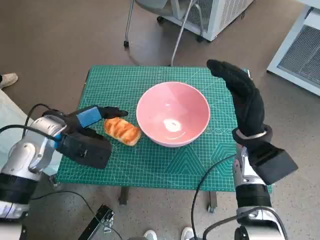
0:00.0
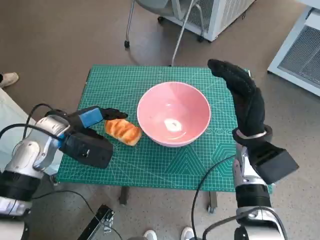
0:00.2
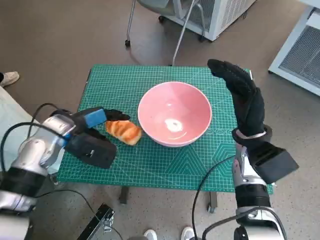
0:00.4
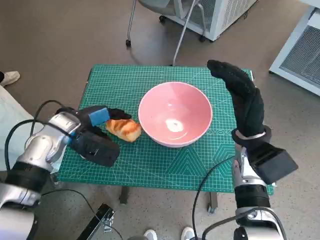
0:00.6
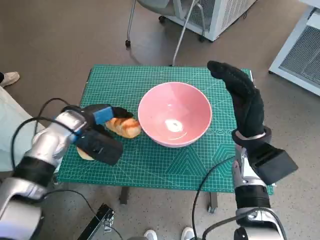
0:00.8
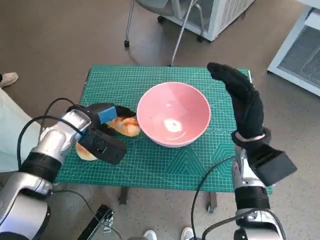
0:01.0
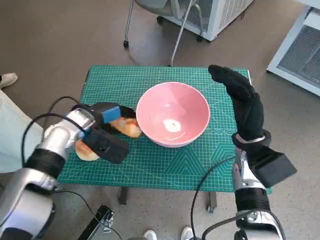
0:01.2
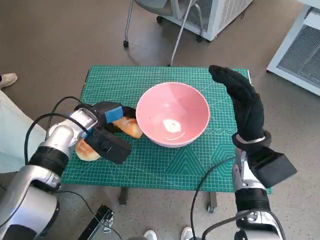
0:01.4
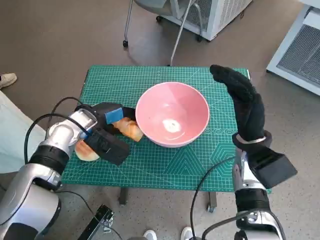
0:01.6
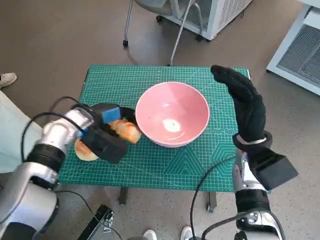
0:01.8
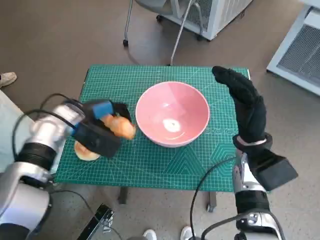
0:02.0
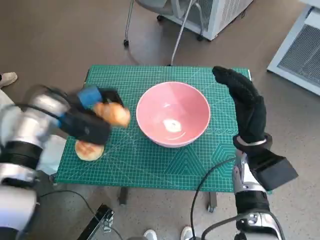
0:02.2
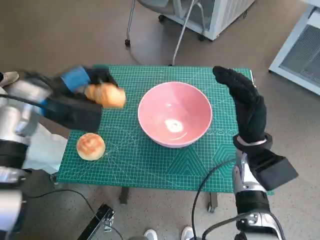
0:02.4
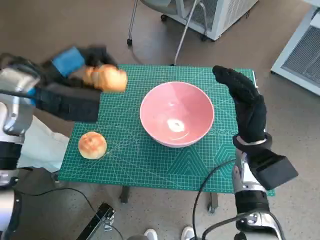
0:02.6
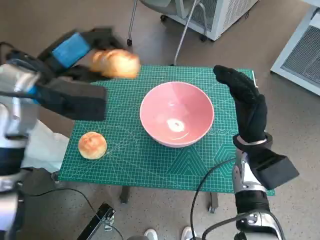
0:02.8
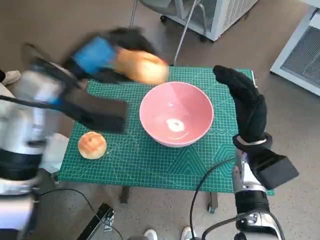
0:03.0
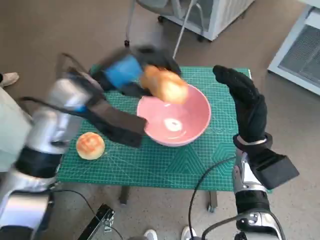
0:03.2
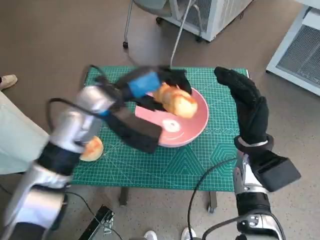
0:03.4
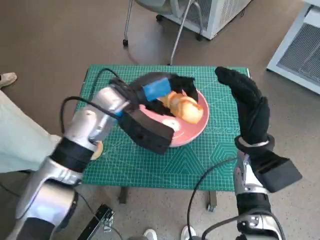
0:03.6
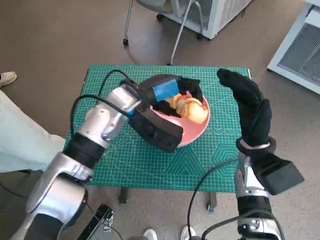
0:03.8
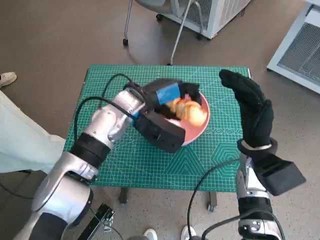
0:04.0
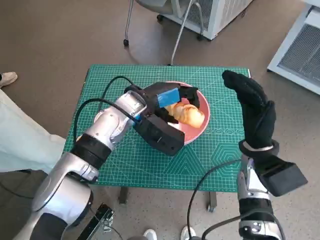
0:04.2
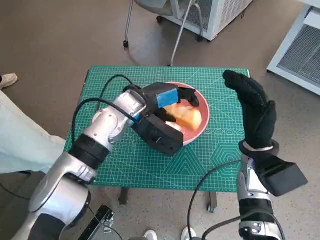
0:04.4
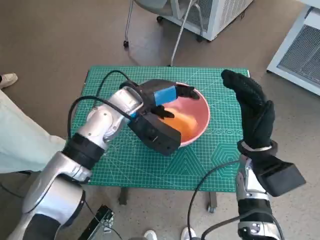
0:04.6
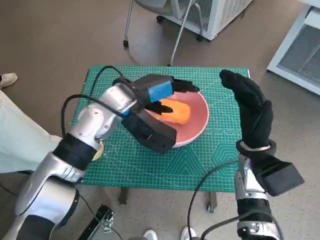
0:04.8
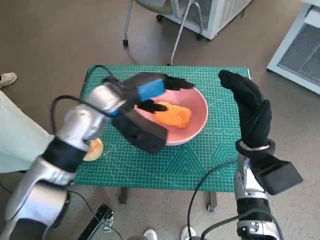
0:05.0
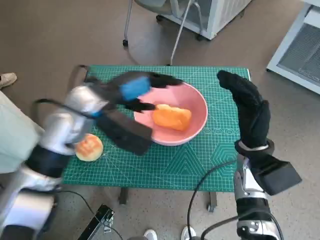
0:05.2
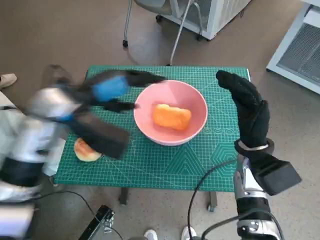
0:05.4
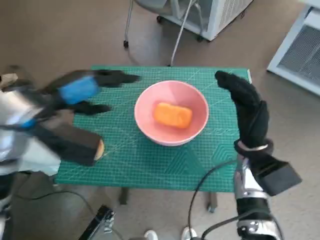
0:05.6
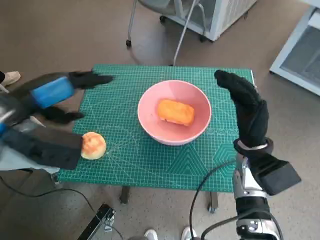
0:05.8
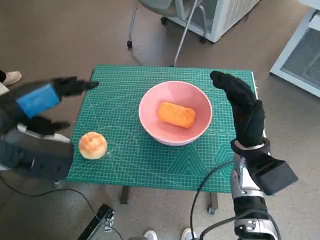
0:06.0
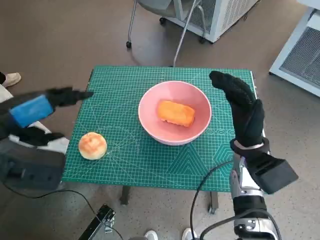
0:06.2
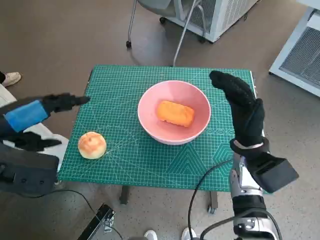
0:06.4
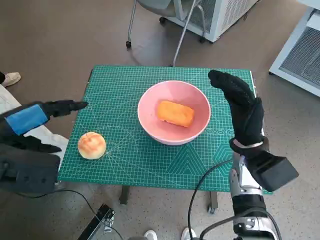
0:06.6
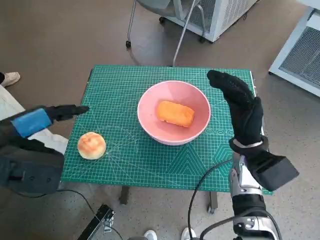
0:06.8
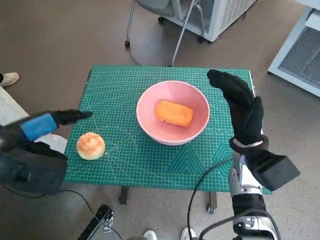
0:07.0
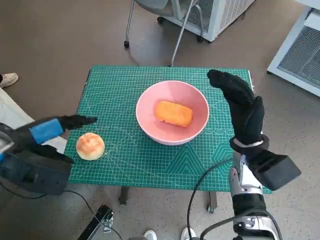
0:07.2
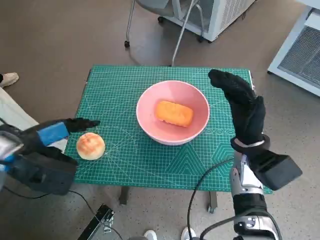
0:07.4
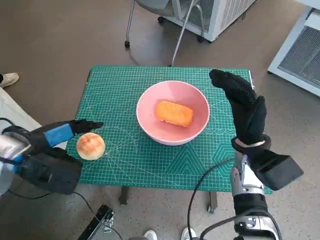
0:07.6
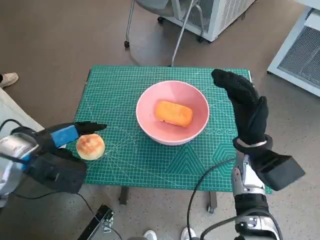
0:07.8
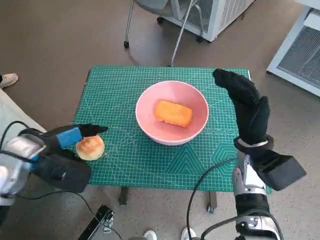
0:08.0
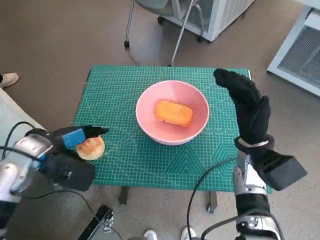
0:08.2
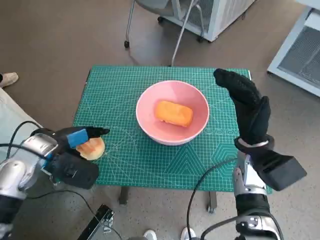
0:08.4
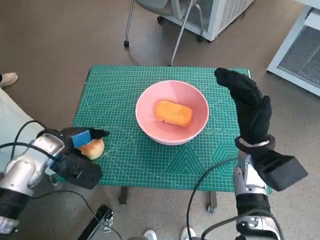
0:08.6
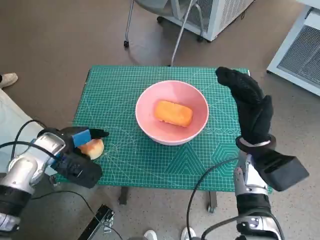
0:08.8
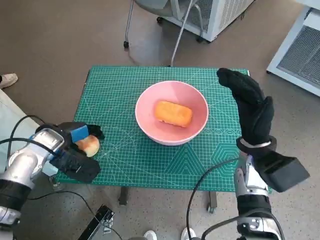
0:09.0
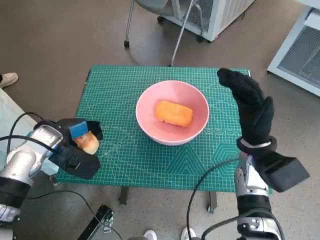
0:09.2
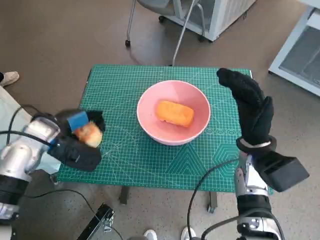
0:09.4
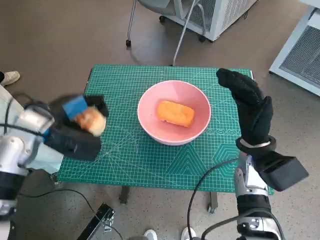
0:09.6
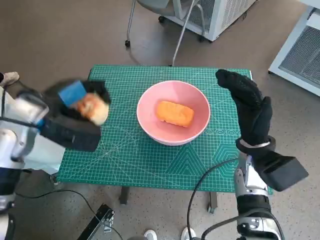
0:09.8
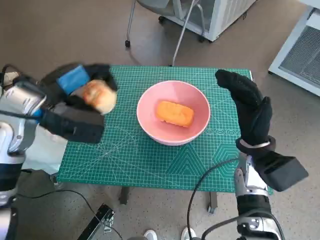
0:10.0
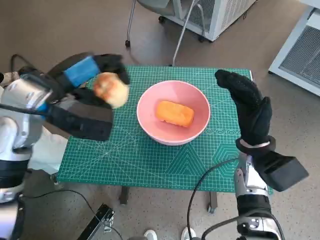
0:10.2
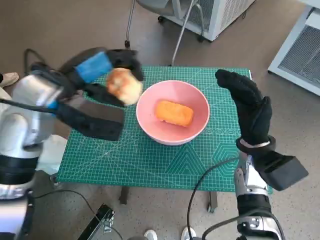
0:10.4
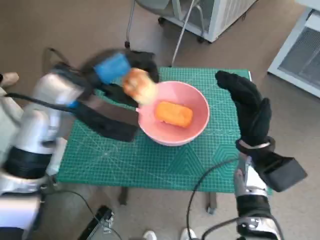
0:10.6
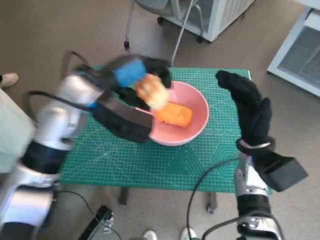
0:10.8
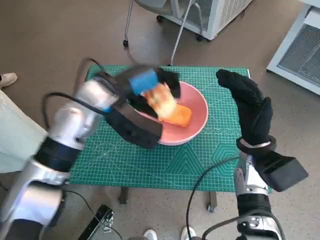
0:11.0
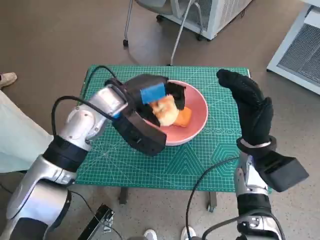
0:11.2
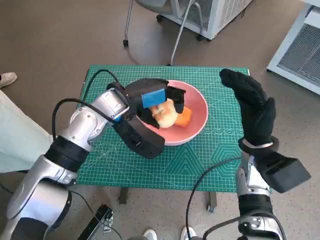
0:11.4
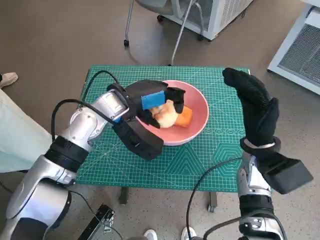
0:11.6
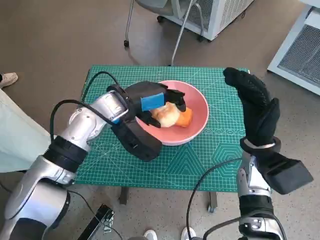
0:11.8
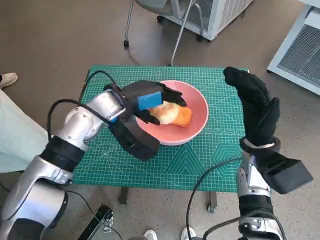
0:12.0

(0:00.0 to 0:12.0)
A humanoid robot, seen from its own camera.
Task of the whole recording: Push the bowl to the center of the table and put the bread into the bowl.
Step, 0:01.4 - 0:04.8: Place the long bread in pink bowl with left hand.
Step, 0:05.2 - 0:08.6: Grasp the round bread with left hand.
0:00.0 - 0:01.6: The left hand ends up approximately 5 cm from where it was.
0:01.6 - 0:03.0: The left hand travels upward by some 15 cm.
0:03.0 - 0:04.4: The left hand travels downward and to the right by about 15 cm.
0:04.4 - 0:06.0: The left hand travels to the left, backward and upward by approximately 20 cm.
0:06.0 - 0:07.6: The left hand shifts some 10 cm downward.
0:07.6 - 0:09.0: The left hand travels downward by roughly 5 cm.
0:09.0 - 0:10.4: The left hand shifts approximately 15 cm upward and to the right.
0:10.4 - 0:12.0: The left hand moves downward and to the right, approximately 10 cm.

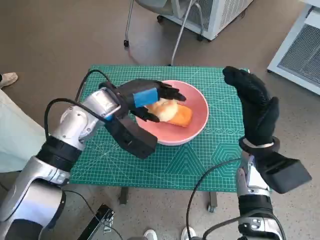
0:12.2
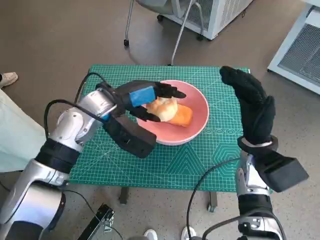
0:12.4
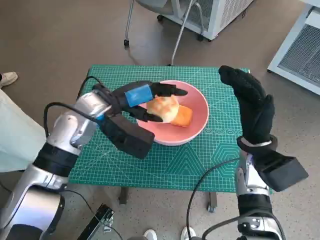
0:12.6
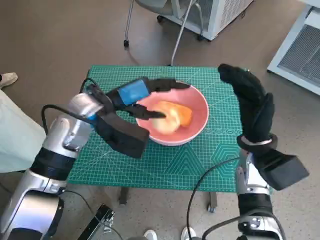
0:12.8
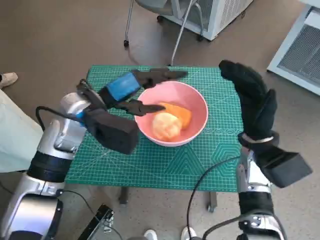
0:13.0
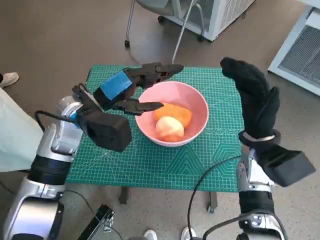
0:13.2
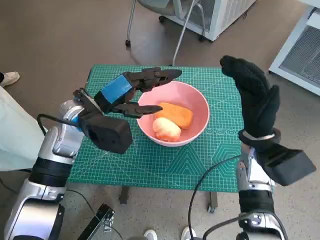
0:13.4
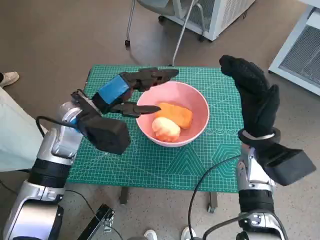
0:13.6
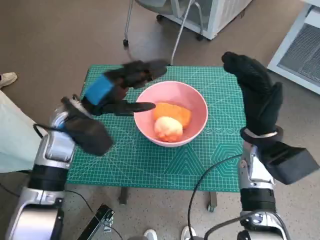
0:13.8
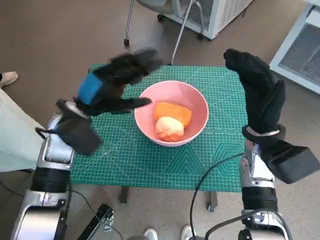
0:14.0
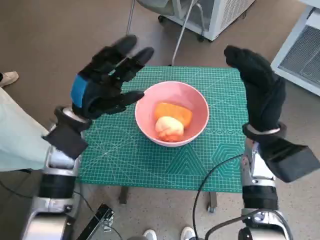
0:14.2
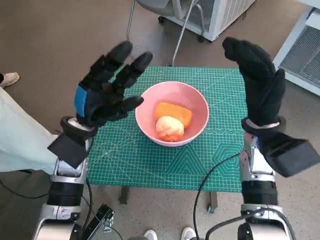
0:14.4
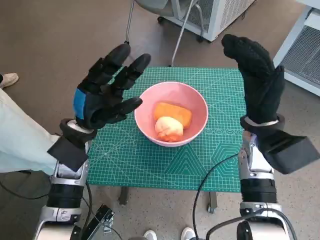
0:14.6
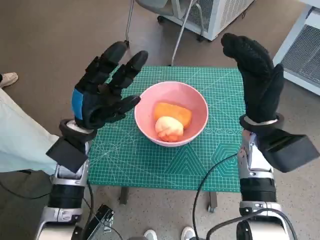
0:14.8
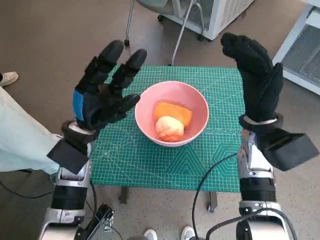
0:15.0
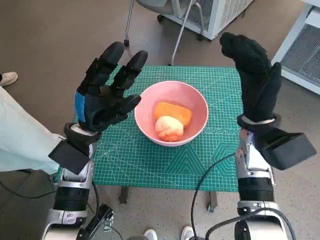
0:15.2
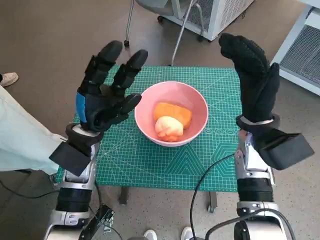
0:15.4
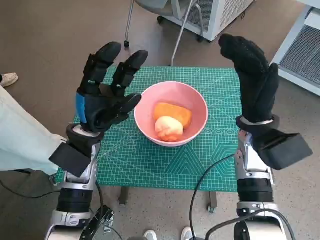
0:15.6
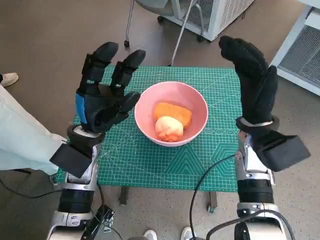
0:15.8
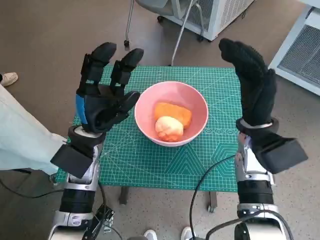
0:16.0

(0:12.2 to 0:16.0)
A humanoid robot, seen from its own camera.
Task of the whole recording: Push the bowl to the center of the table and put the bread into the bowl.
0:13.4 - 0:14.8: The left hand moves about 5 cm.
0:14.8 - 0:16.0: The hands stay close to where they were, moving slightly.

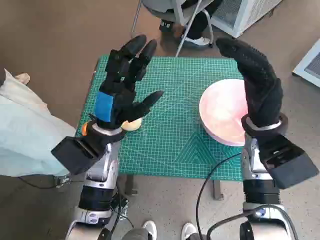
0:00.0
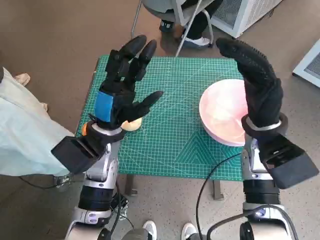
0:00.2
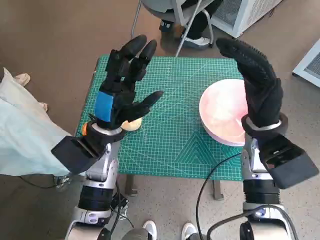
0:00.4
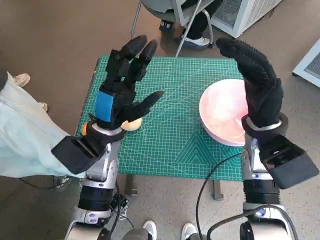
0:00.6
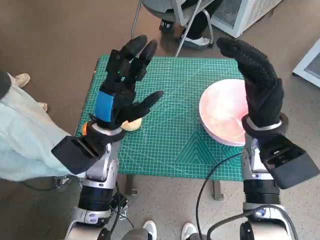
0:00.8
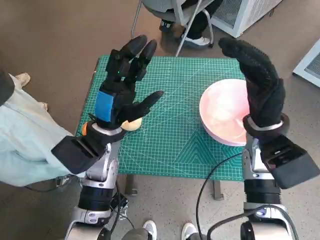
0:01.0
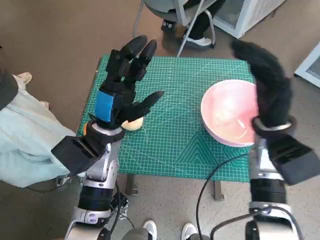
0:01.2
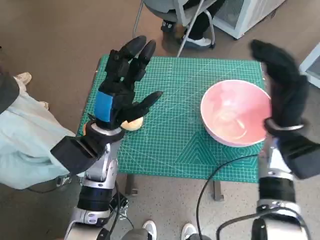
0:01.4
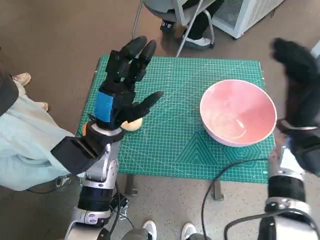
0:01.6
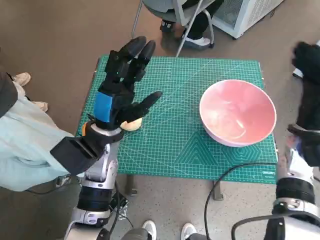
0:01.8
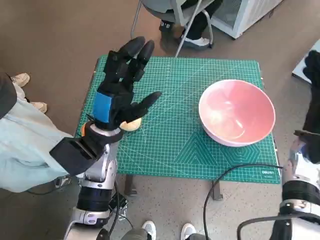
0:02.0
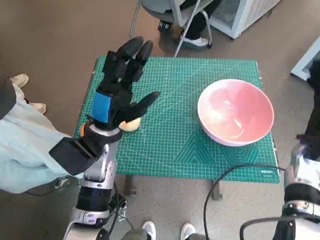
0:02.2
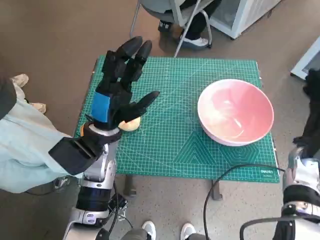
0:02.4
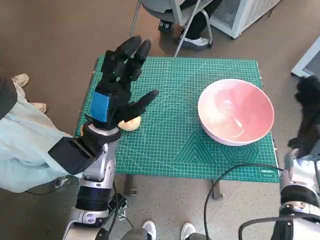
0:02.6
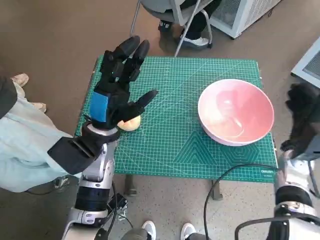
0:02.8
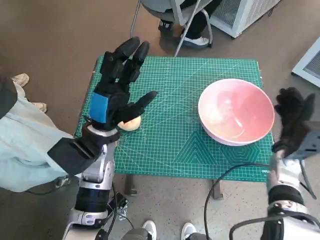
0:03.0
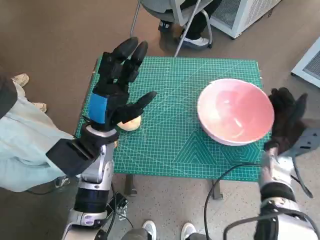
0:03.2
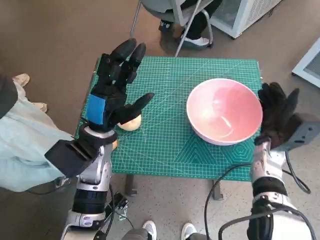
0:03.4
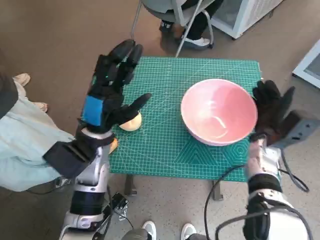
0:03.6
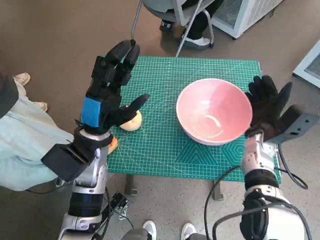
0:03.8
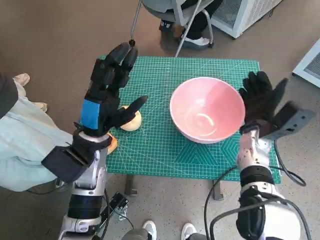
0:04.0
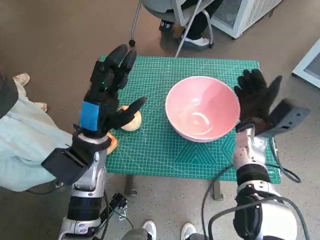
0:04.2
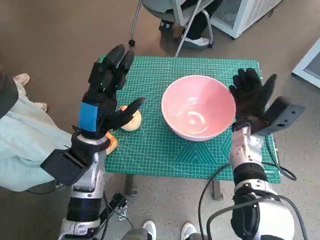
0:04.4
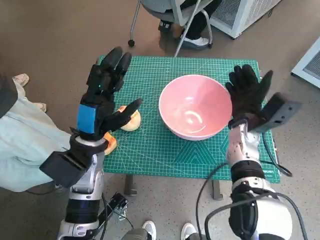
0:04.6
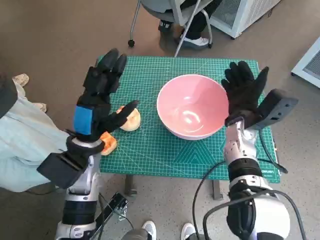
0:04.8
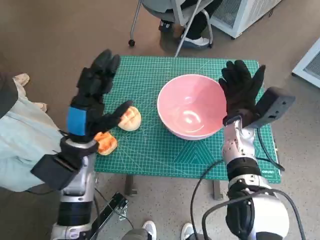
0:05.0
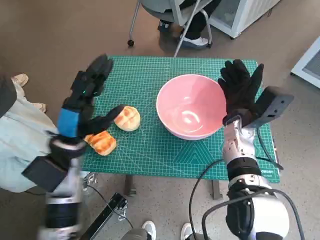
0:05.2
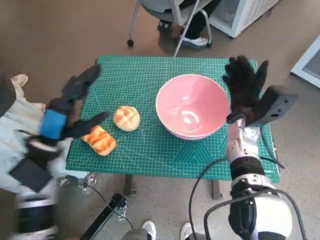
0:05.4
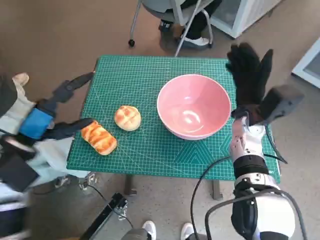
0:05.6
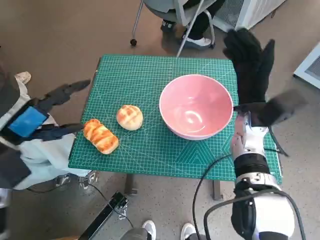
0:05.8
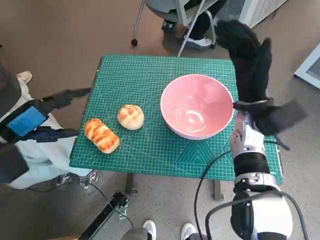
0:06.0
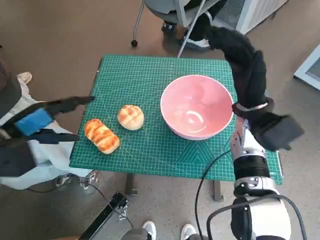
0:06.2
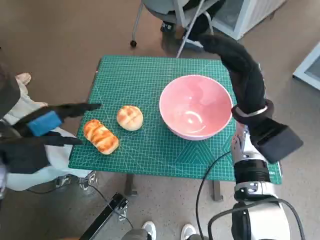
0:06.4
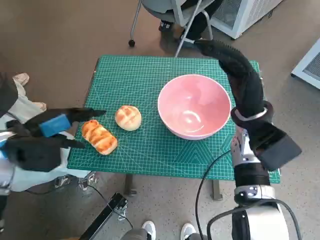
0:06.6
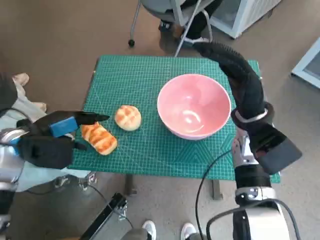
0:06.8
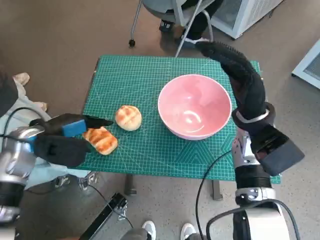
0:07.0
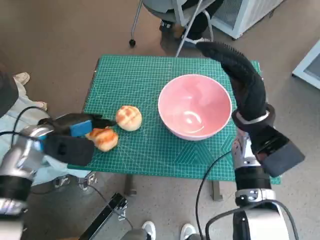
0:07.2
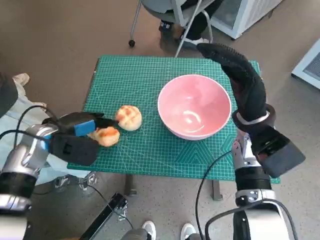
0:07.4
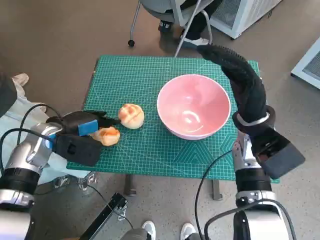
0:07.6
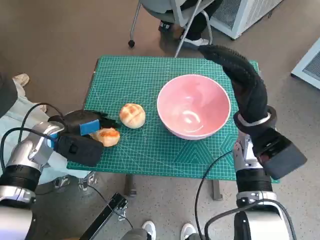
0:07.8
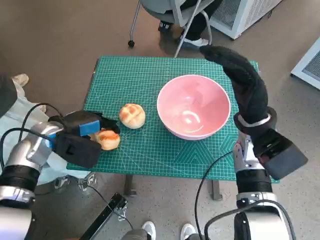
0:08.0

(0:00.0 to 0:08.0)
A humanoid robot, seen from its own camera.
Task of the whole recording: Push the bowl to the center of the table and put the bread into the bowl.
Step, 0:00.0 - 0:05.4: Move the pink bowl to the center of table with right hand.
Step, 0:05.6 - 0:07.8: Grasp the long bread with left hand.
0:01.6 - 0:03.2: The right hand shifts roughly 10 cm downward.
0:03.2 - 0:04.8: The right hand moves to the left, roughly 10 cm.
0:04.8 - 0:06.4: The left hand goes about 15 cm to the left and upward, while the right hand is displaced upward by some 5 cm.
0:06.4 - 0:08.0: The left hand travels downward and forward by about 10 cm.
